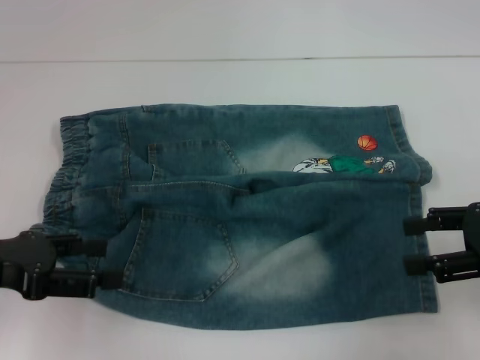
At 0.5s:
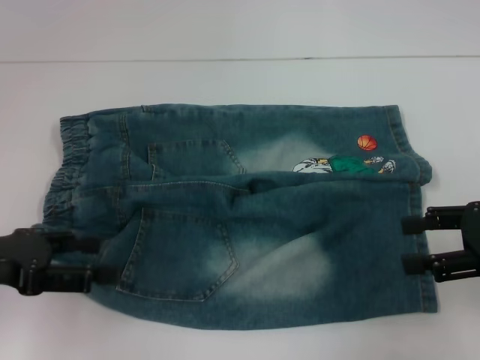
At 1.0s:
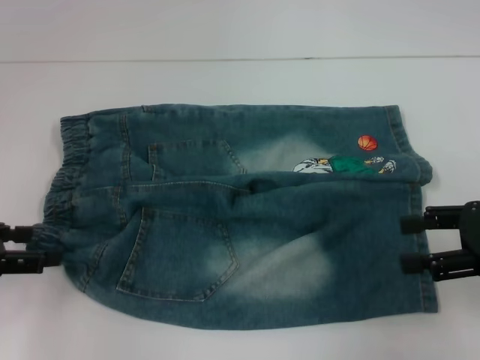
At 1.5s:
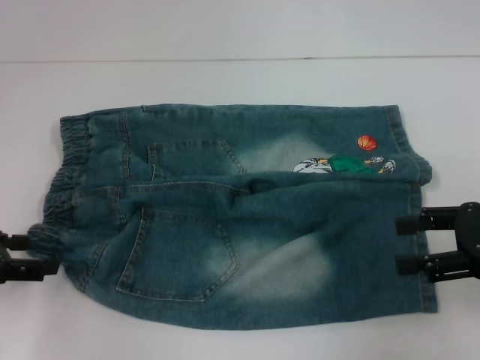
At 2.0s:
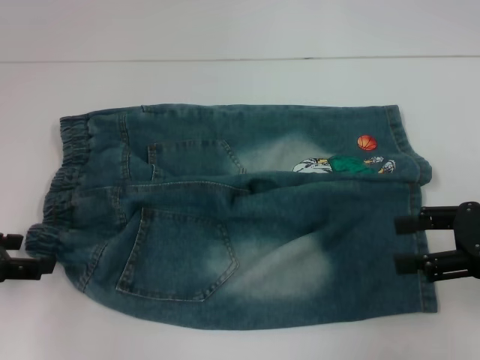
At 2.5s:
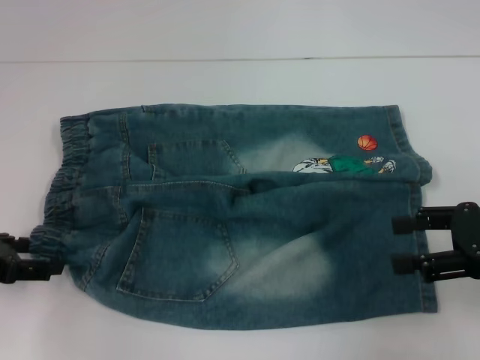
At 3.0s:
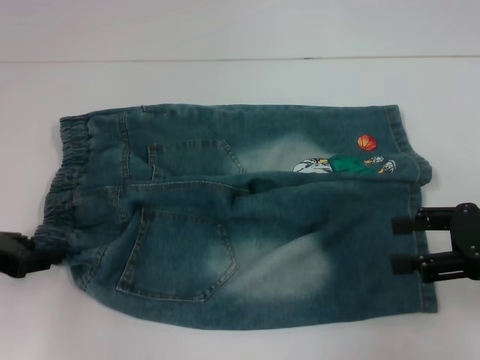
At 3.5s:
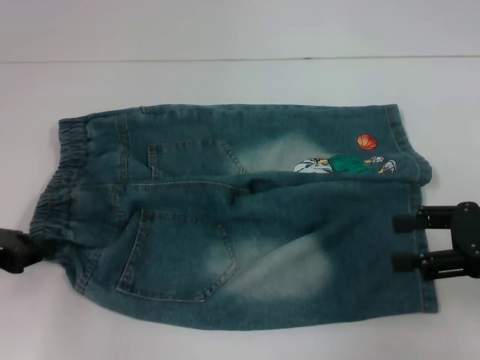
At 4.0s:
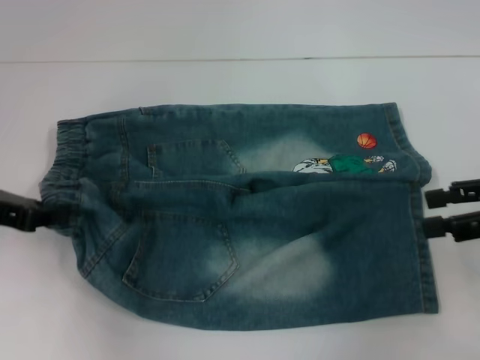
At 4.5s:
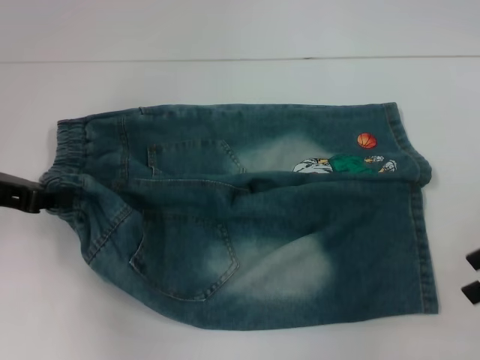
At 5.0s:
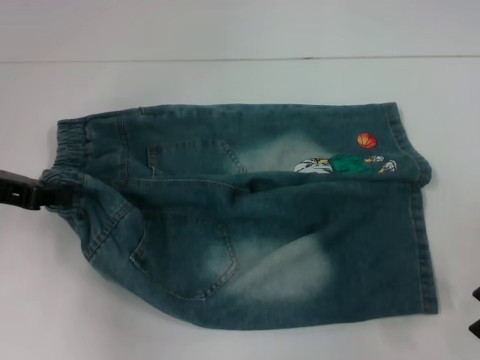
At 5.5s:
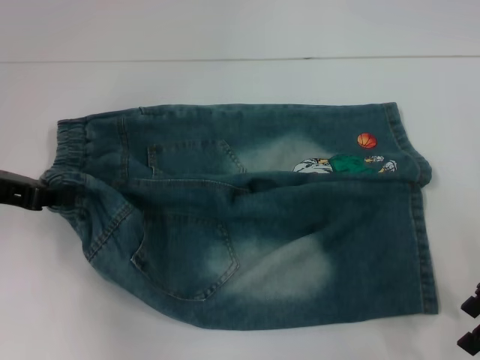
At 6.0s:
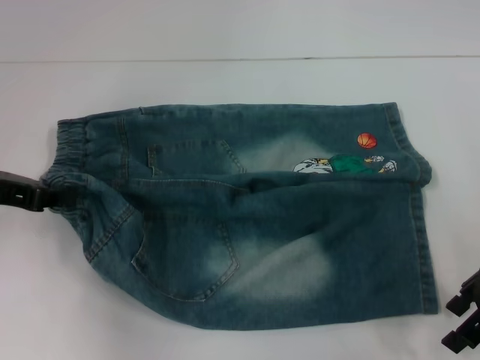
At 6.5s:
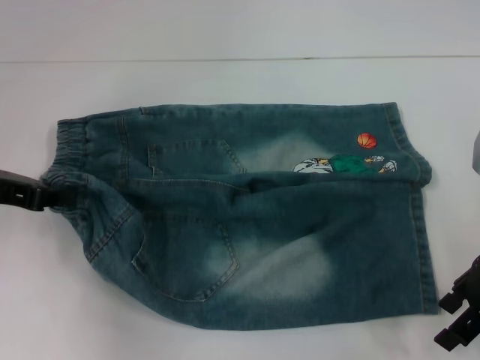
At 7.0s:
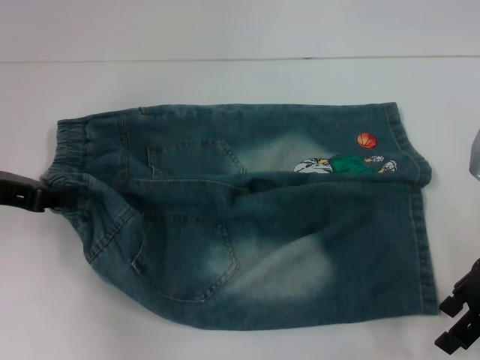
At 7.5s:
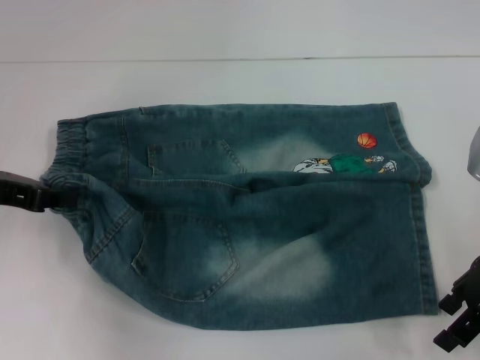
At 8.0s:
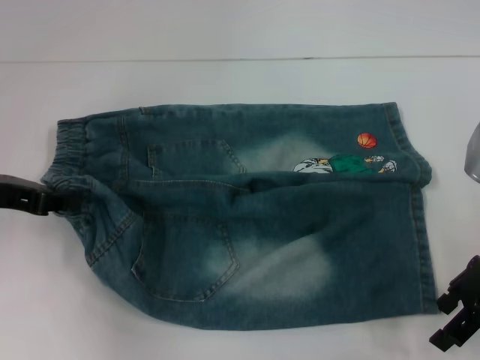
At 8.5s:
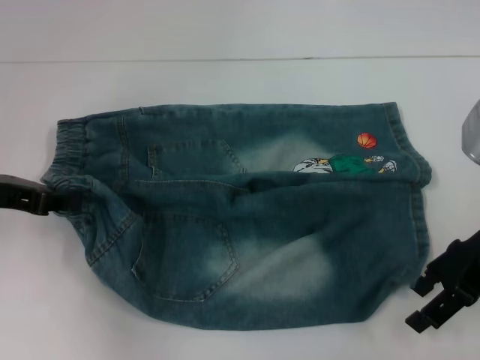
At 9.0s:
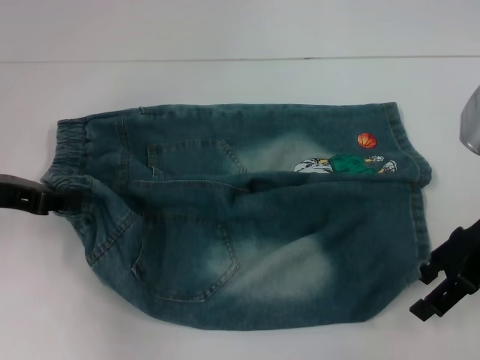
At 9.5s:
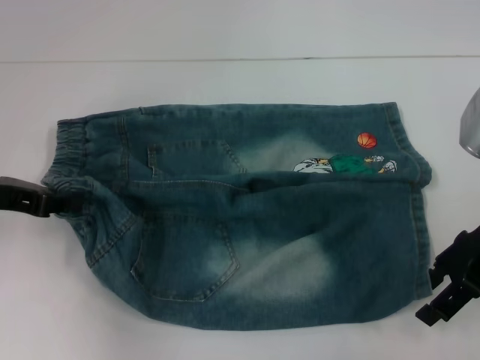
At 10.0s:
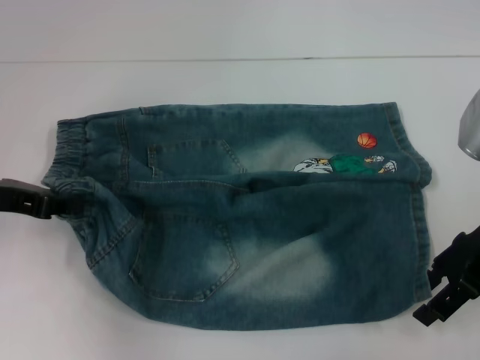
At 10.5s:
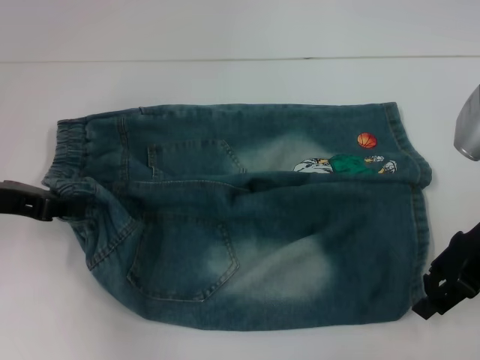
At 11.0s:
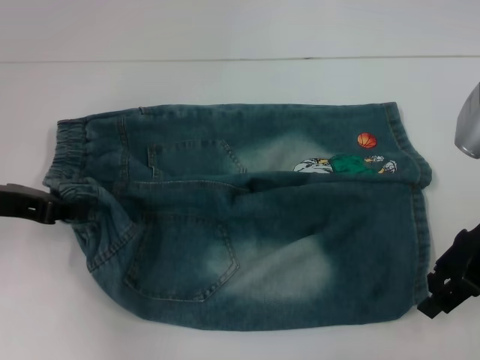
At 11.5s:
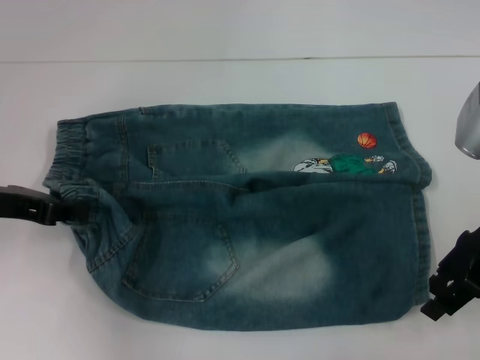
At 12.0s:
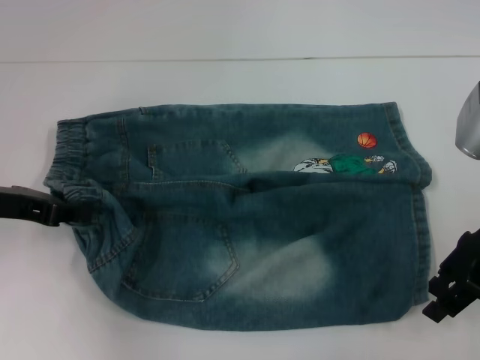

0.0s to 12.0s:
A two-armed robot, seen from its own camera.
Step, 0.0s to 3.0s: Hold the lower left waistband with your left hand.
0.0s to 2.0s: The left gripper ends up approximately 5 cm from where it was.
2.0s to 4.0s: The left gripper ends up roughly 5 cm from where it was, and closes.
4.0s to 6.0s: The right gripper travels to the left by about 5 cm.
6.0s to 8.0s: The two grippers keep their place.
8.0s to 10.0s: The grippers move only a little.
10.0s to 12.0s: Both grippers stay about where they are.

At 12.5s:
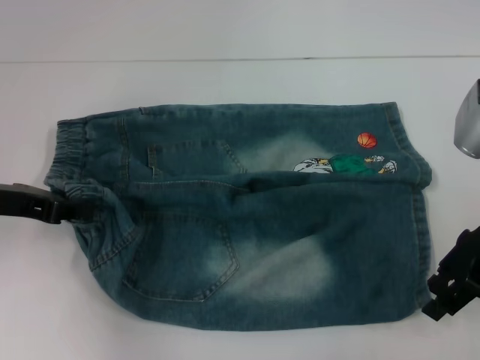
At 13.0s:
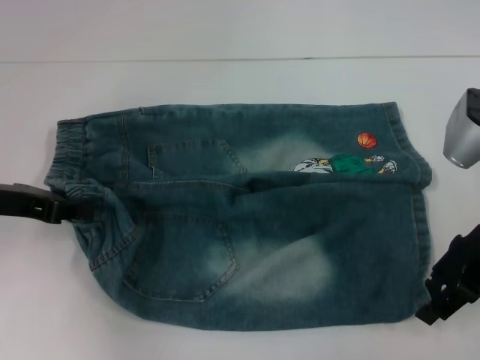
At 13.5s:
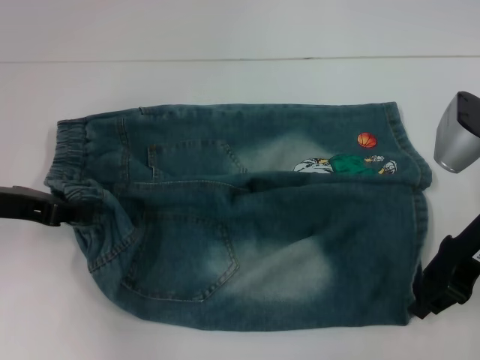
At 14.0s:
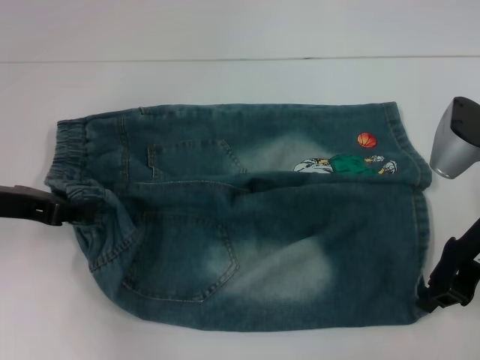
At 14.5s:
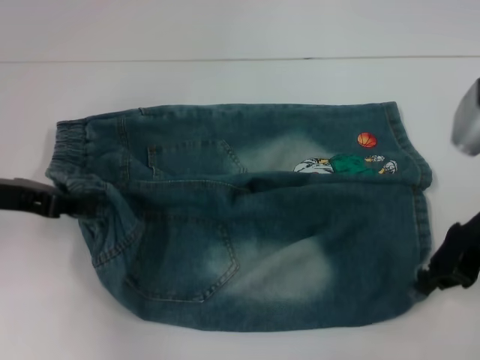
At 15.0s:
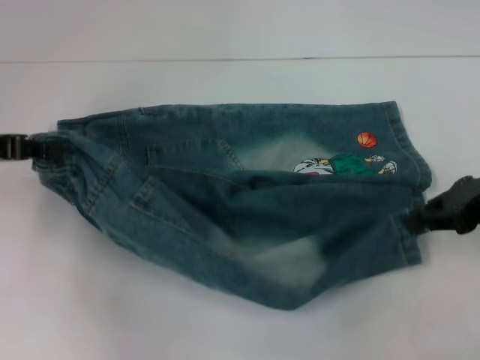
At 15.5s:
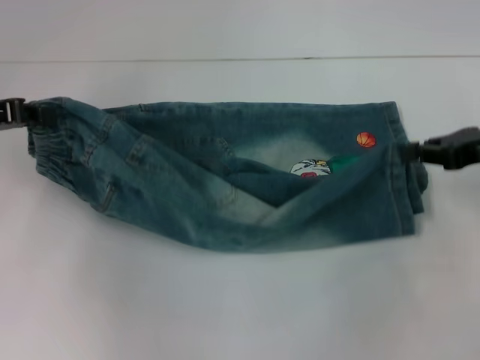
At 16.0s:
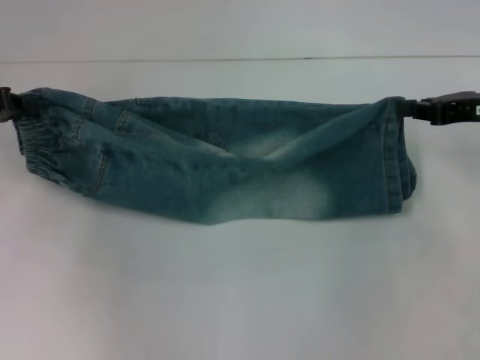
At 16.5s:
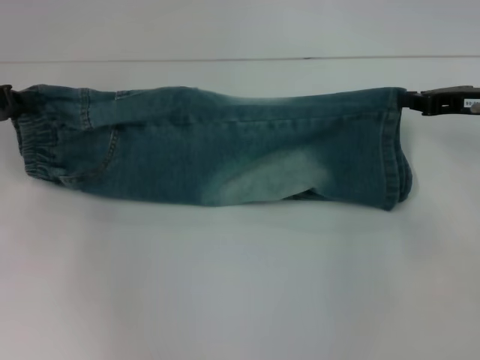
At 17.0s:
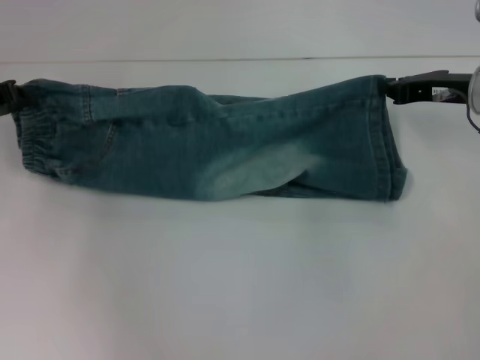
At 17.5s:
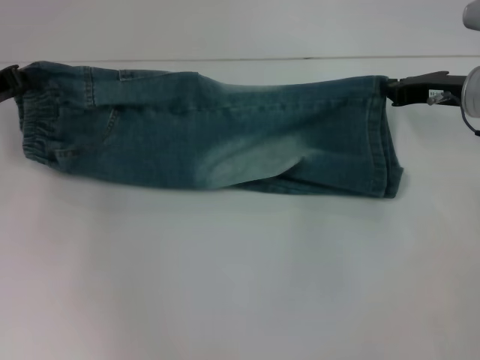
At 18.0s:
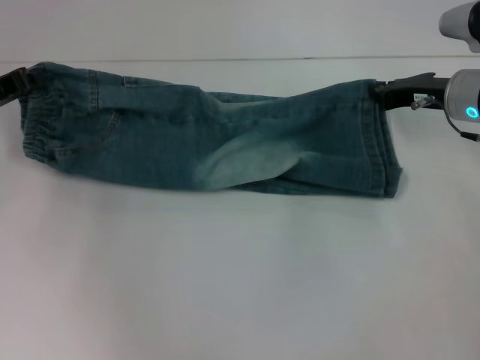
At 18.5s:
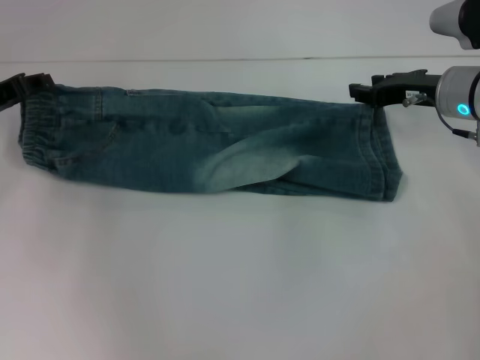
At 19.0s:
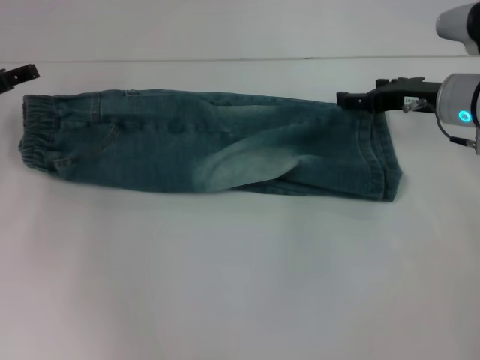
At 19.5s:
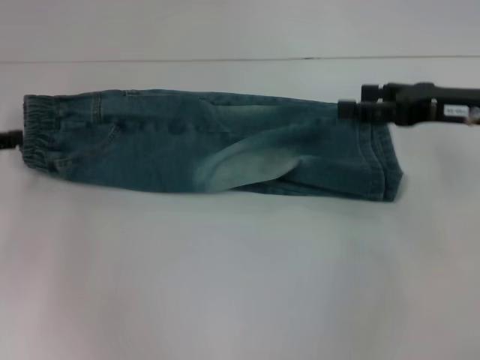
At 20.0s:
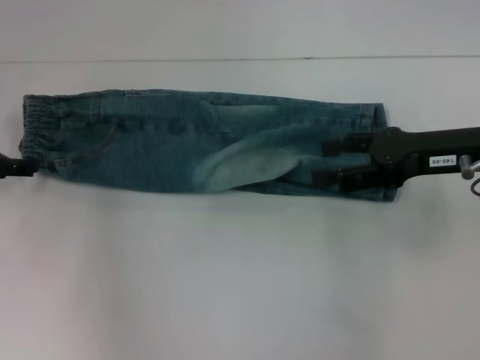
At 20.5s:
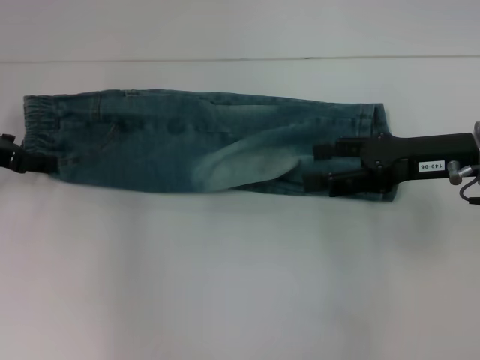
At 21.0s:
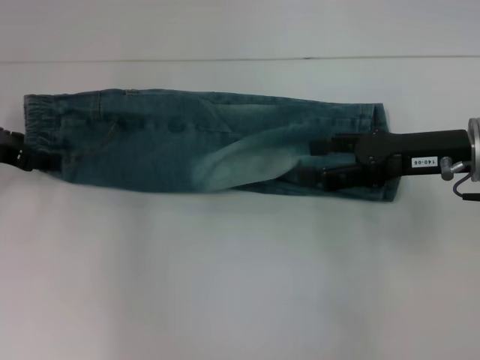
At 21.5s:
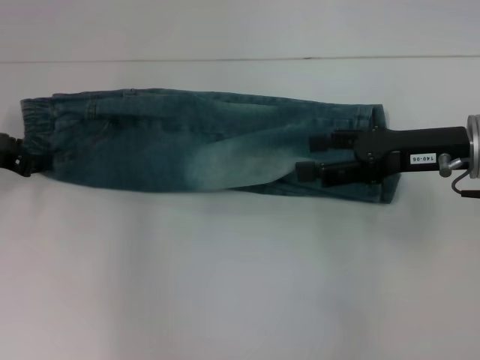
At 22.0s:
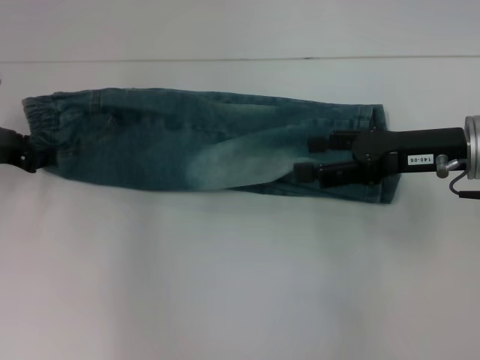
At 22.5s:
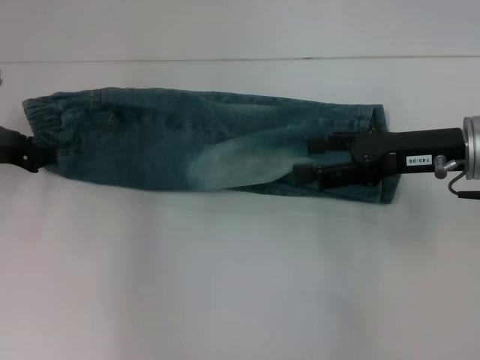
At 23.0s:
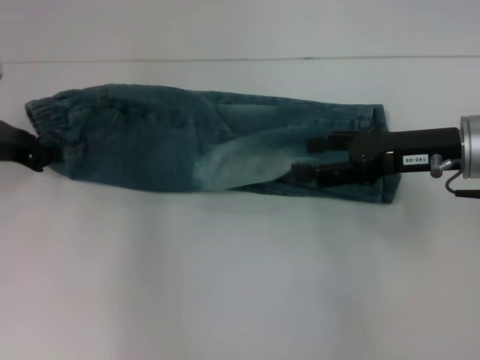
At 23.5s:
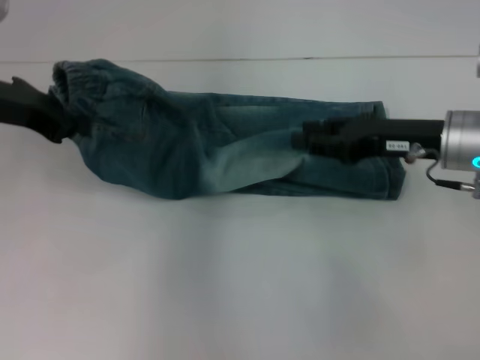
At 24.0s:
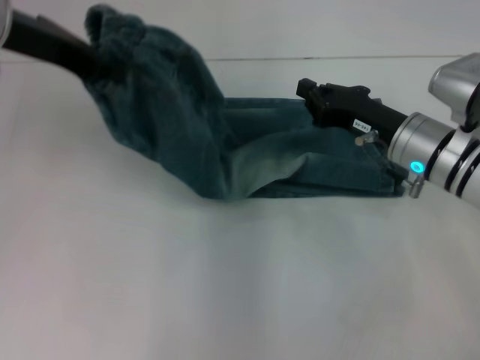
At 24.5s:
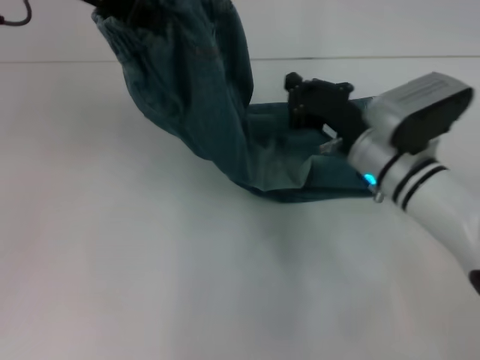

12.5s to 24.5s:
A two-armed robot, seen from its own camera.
Step, 14.5s to 18.5s: Fold upward with your right hand.
Step, 19.0s to 22.5s: Hold the waistband with your left hand.
12.5s to 14.5s: The right gripper closes up.
14.5s to 16.5s: Both grippers move forward, about 5 cm.
16.5s to 18.5s: The right gripper goes approximately 5 cm to the left.
18.5s to 20.5s: The left gripper opens; the right gripper shifts some 10 cm backward, and opens.
20.5s to 22.5s: The left gripper closes its fingers.
22.5s to 24.5s: The left gripper travels upward and to the right by approximately 25 cm; the right gripper travels to the left and downward by about 10 cm, and closes its fingers.

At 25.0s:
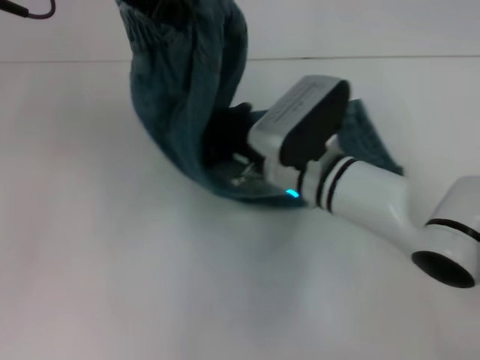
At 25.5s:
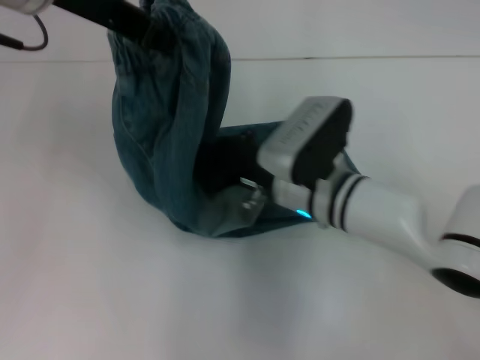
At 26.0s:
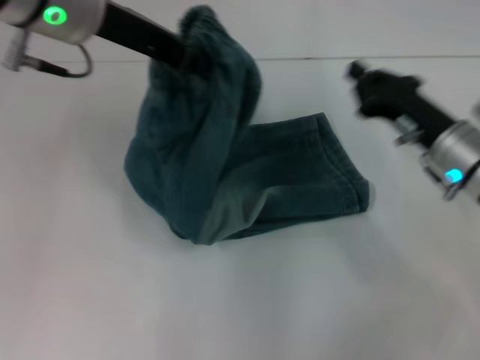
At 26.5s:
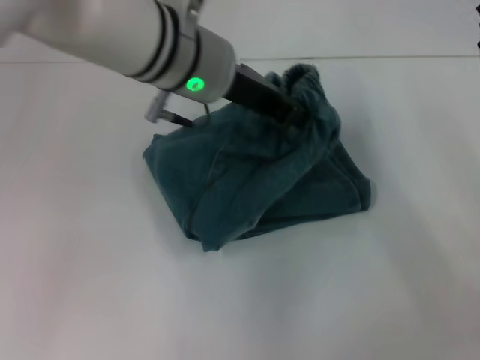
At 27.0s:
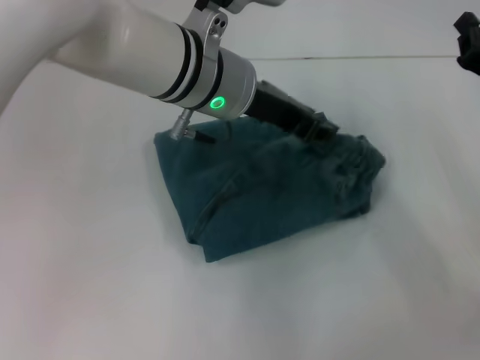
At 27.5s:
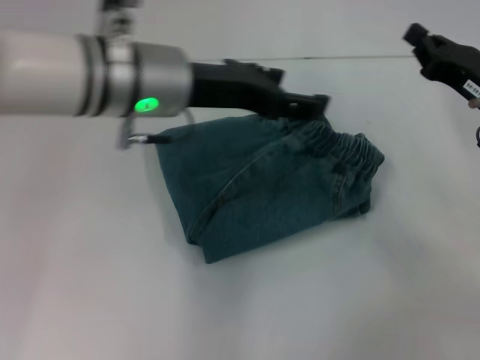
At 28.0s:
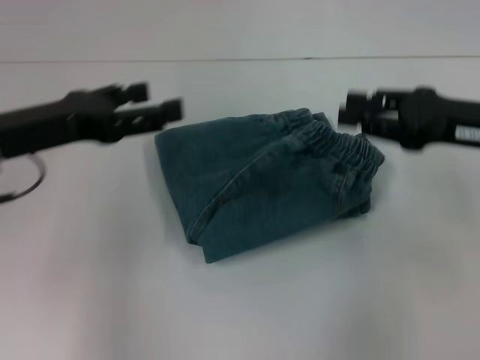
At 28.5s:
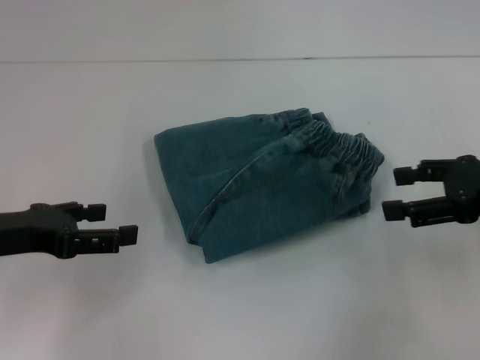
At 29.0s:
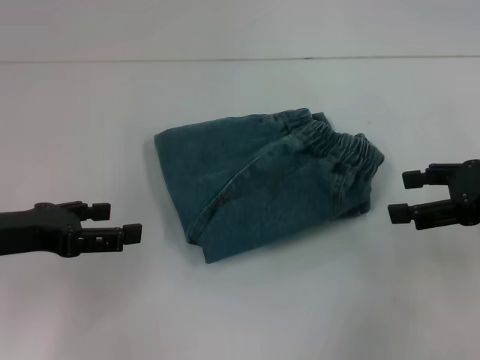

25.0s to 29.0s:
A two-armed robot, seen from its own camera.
Step, 25.5s to 27.0s: Fold to the right with your left hand.
25.0s to 27.0s: The right gripper travels to the right by roughly 25 cm; the left gripper shifts about 15 cm downward and to the right.
27.0s to 29.0s: The right gripper moves upward, approximately 5 cm, and opens its fingers, while the left gripper travels to the left and backward by some 25 cm, and opens its fingers.
